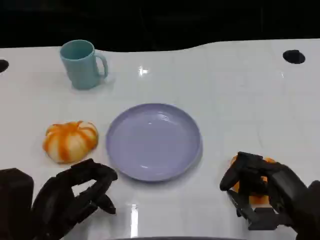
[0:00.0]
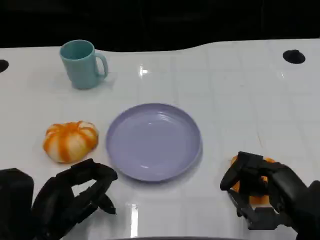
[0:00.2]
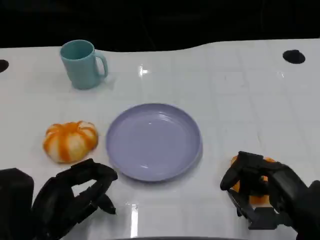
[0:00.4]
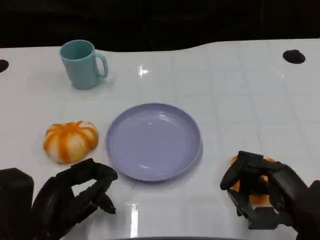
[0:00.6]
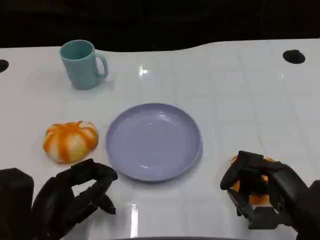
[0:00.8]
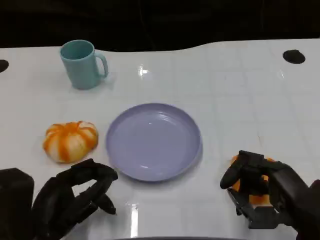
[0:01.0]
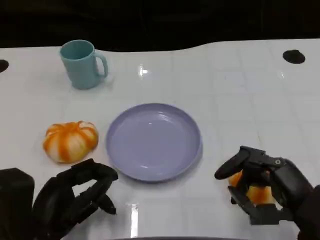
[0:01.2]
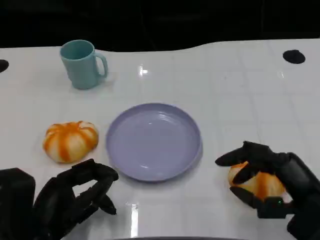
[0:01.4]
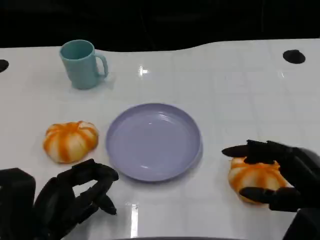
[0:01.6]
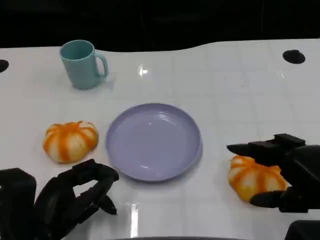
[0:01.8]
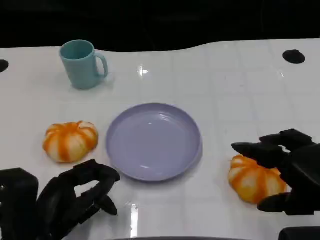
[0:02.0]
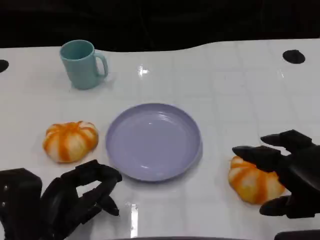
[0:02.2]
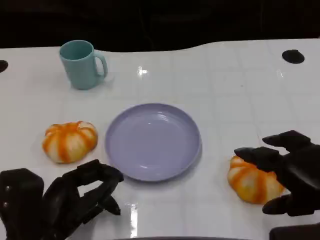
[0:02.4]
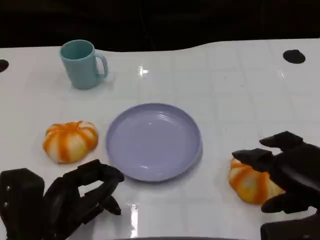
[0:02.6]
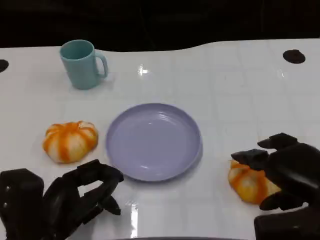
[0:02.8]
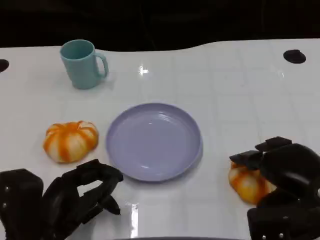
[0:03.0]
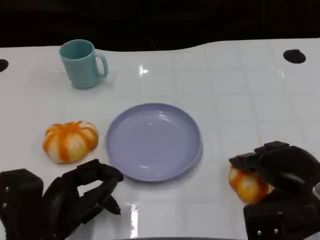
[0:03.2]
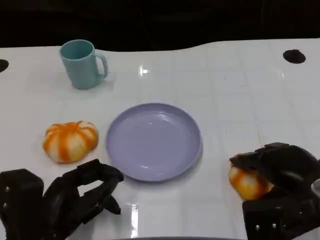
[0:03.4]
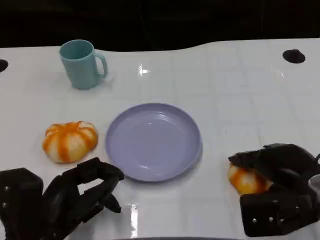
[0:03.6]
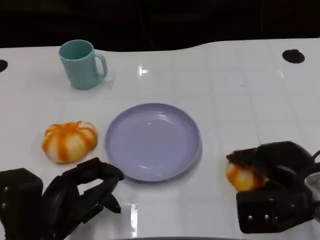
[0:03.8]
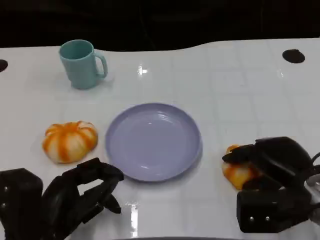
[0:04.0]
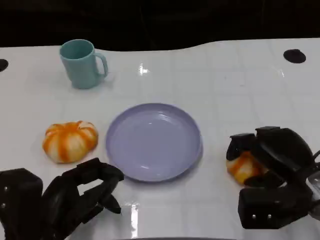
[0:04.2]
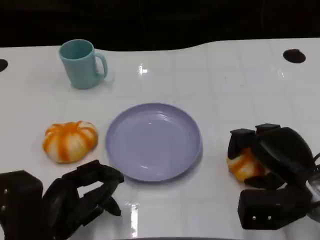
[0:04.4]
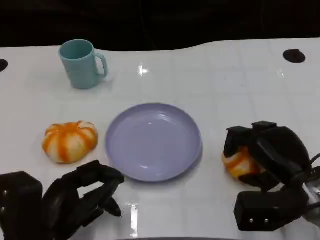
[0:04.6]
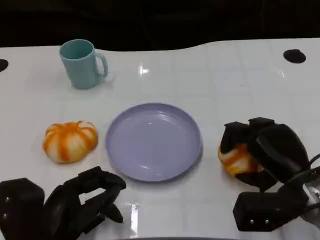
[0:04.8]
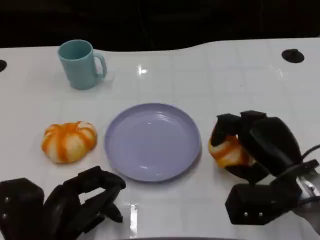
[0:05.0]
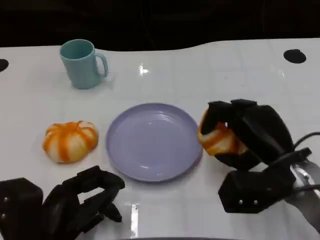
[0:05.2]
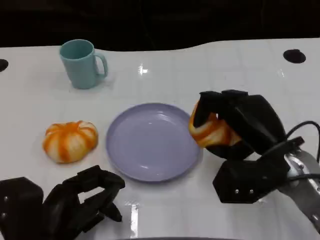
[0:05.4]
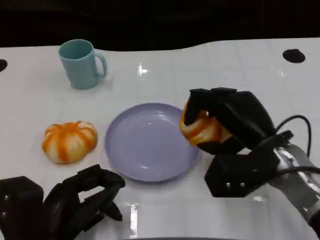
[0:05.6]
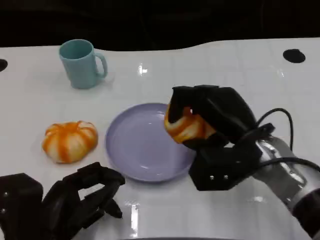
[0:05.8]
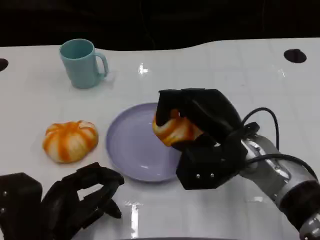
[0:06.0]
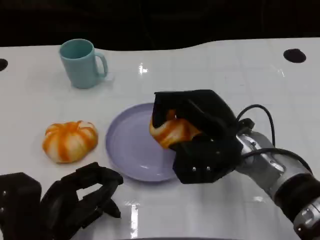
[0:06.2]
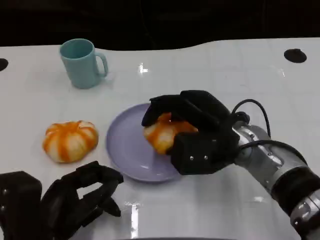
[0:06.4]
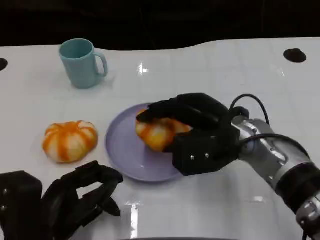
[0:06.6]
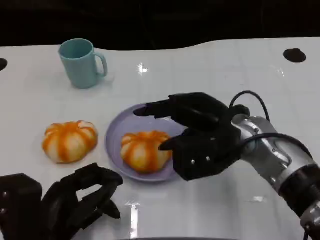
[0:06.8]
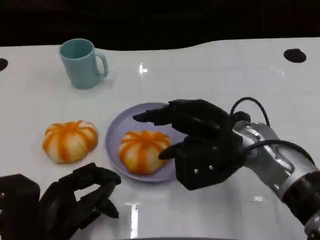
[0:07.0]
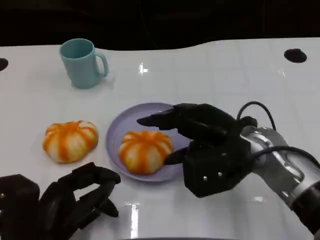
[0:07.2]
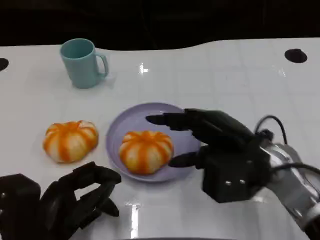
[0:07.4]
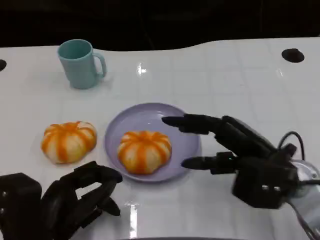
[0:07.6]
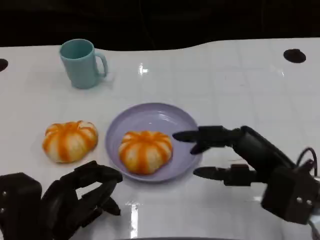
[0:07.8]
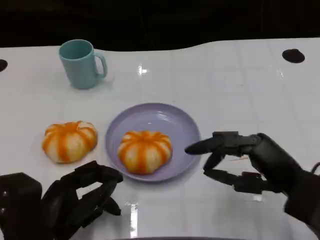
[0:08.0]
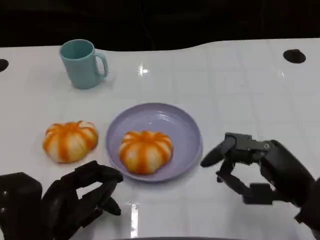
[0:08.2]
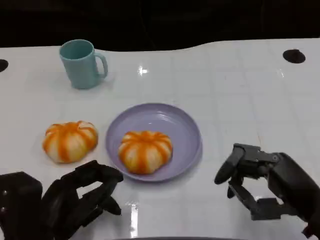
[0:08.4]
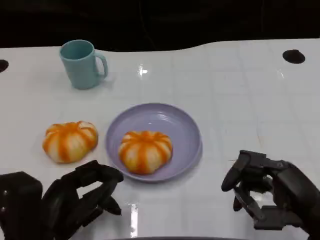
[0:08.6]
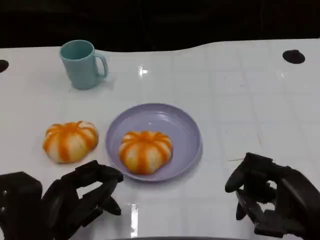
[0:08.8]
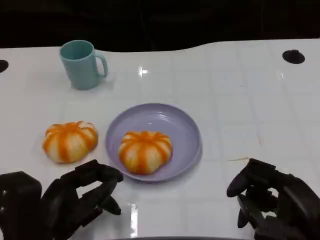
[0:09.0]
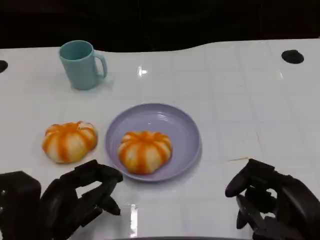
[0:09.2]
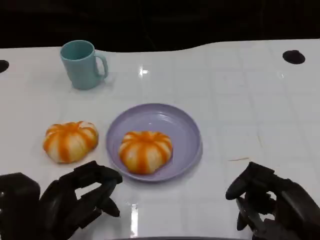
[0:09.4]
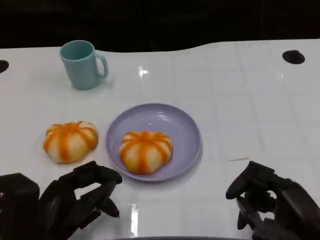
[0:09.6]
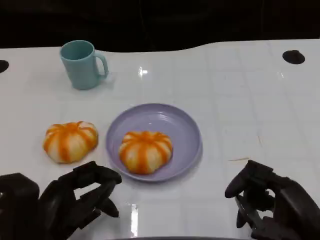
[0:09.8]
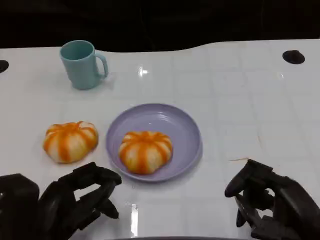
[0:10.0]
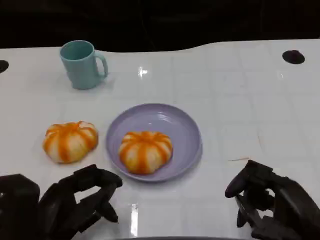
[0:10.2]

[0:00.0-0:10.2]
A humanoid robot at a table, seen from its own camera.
Task of the whole recording: Grasp the bread from the table and place it into the plate.
0:04.4 to 0:05.8: The right hand heads to the left, covering some 10 cm.
0:07.2 to 0:08.8: The right hand heads backward and to the right, covering about 15 cm.
0:08.8 to 0:10.2: The hands make only small movements.

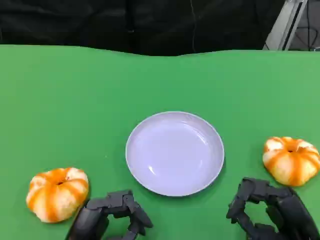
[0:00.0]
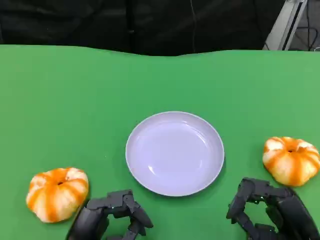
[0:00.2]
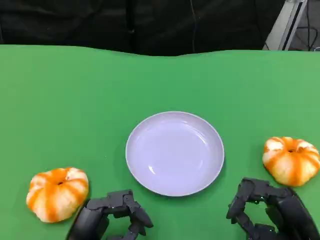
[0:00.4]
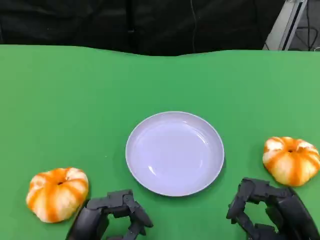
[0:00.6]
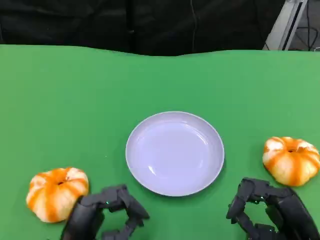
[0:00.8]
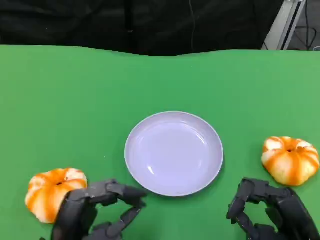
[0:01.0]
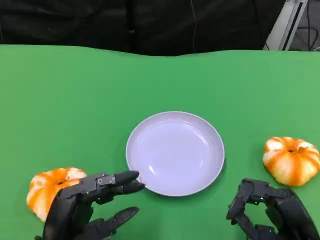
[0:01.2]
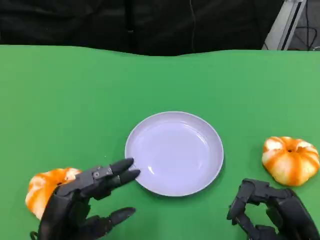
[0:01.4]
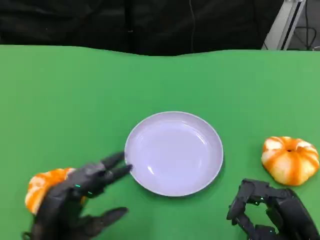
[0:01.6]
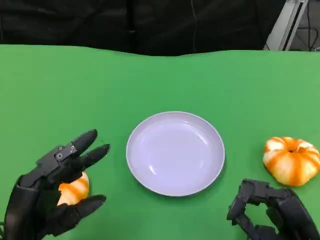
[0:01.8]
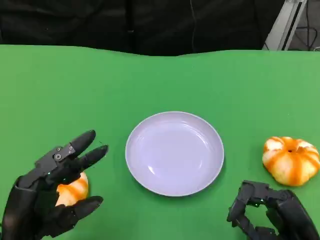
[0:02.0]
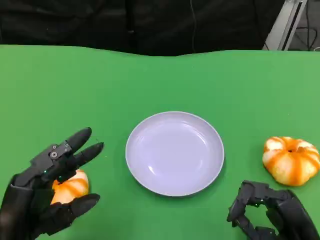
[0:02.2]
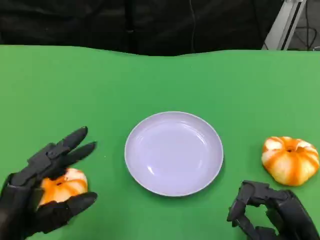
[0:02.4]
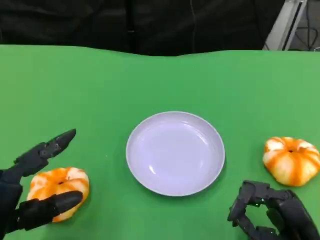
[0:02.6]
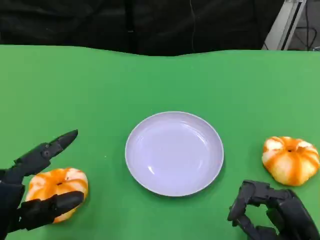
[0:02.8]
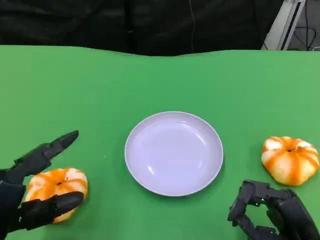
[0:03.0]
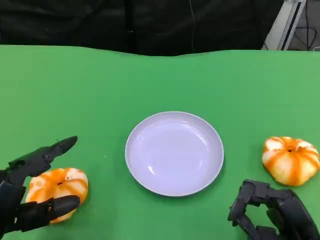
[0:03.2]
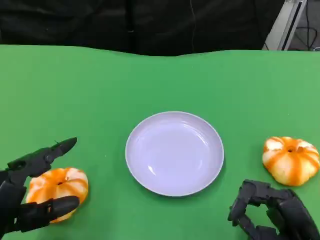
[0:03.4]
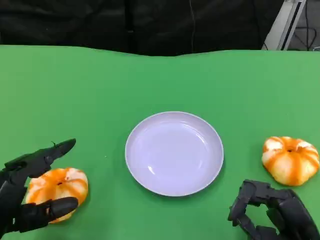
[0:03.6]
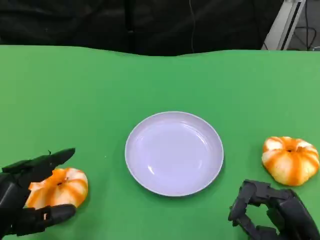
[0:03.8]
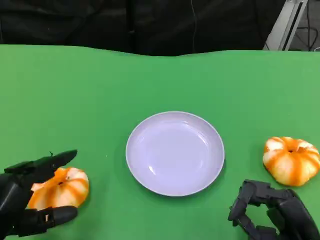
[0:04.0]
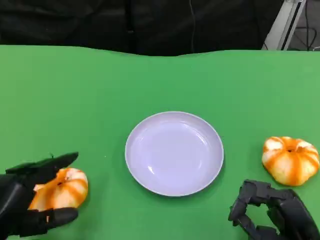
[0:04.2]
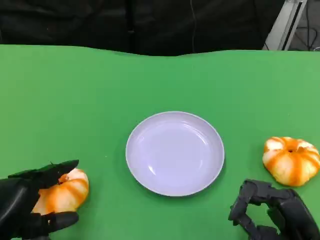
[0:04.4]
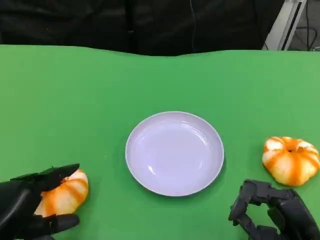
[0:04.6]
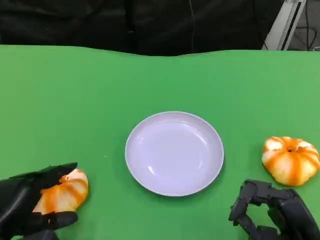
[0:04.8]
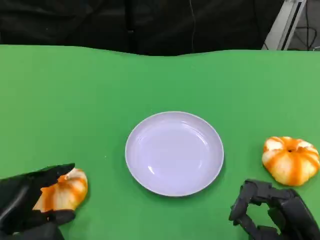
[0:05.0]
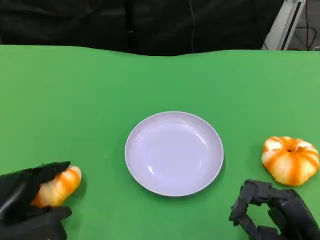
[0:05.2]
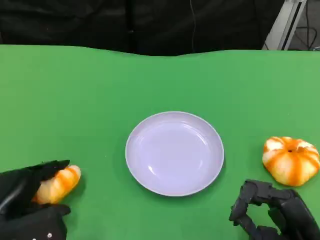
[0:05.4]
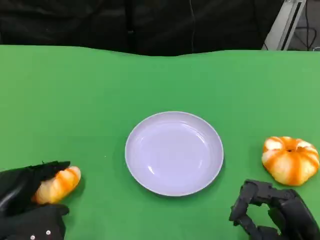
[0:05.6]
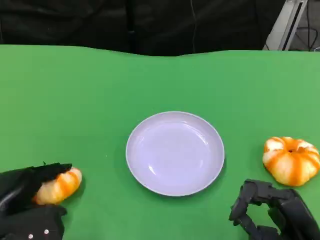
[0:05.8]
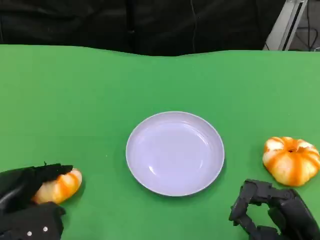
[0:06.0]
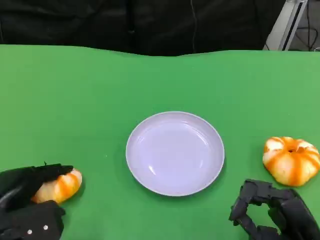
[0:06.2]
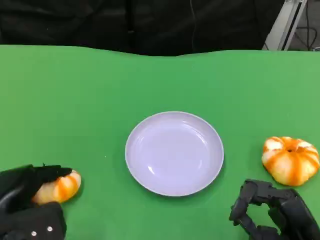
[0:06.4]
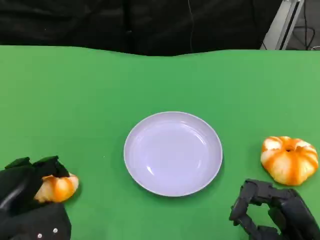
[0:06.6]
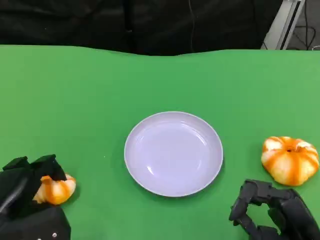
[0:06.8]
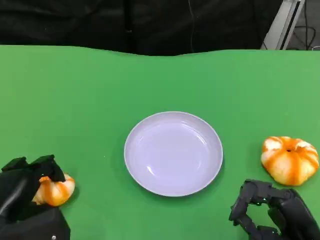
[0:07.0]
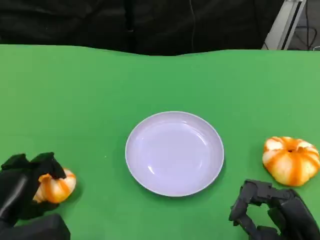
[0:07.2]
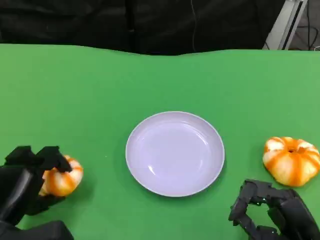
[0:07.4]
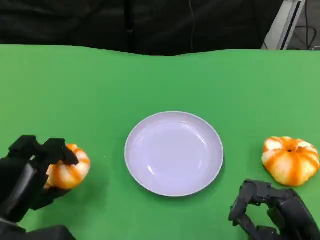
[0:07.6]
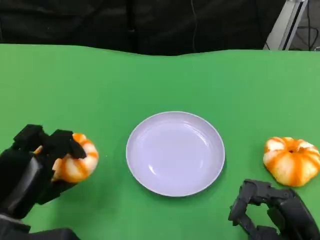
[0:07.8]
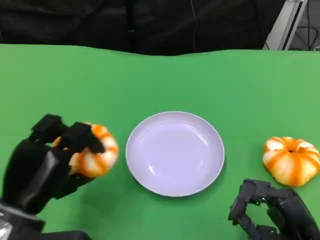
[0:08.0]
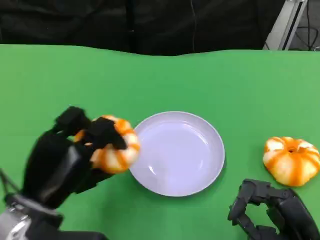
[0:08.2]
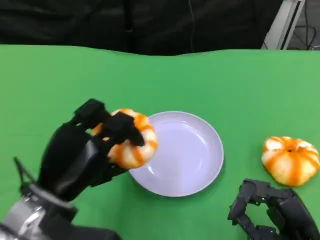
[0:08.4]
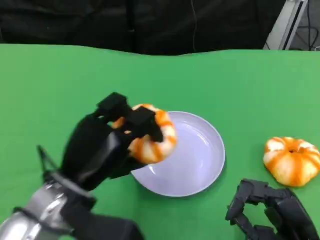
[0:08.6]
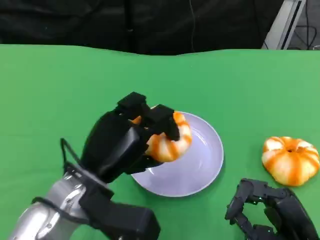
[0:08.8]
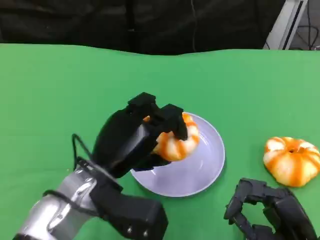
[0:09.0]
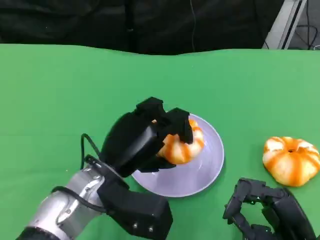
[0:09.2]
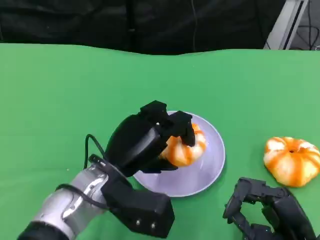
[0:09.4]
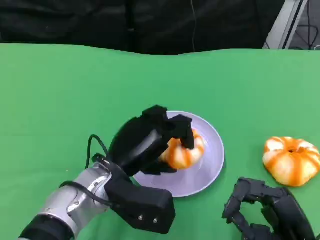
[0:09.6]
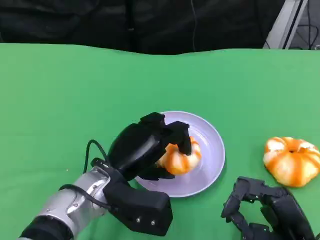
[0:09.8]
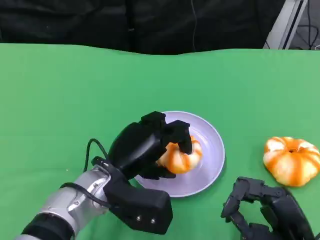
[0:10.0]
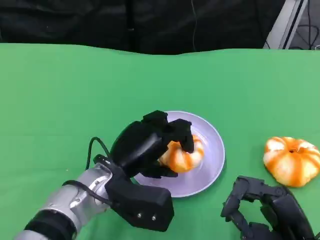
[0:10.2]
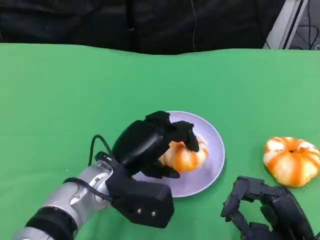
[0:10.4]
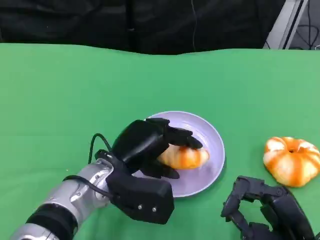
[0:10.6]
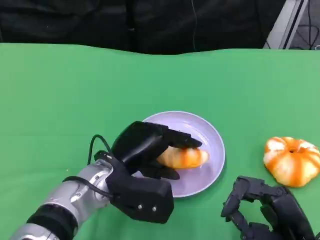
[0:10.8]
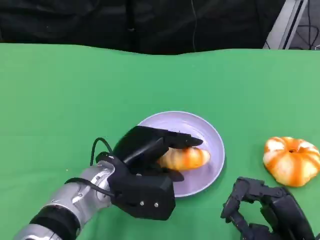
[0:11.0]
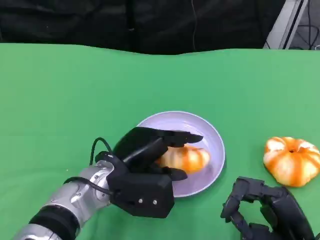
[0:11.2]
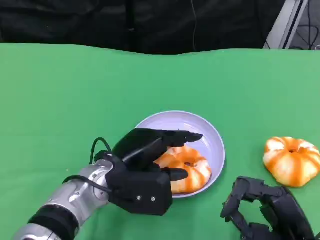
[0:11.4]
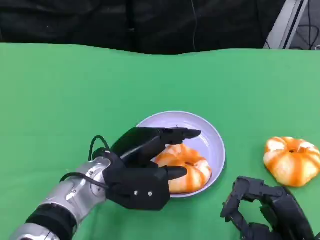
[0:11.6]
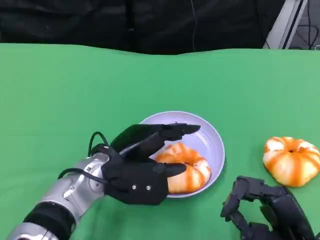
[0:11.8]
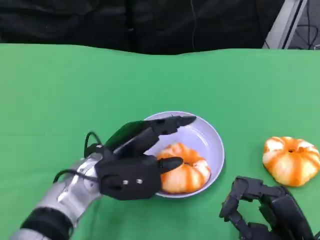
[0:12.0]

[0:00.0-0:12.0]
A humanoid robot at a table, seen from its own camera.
Task of the whole recording: Grasp the bread from the table and place it into the plate.
0:00.0 to 0:01.6: The left hand shifts by about 5 cm.
0:01.6 to 0:03.0: The left hand moves roughly 5 cm.
0:04.4 to 0:06.0: The left hand moves some 5 cm.
0:07.6 to 0:09.0: The left hand goes roughly 15 cm to the right and forward.
0:09.0 to 0:10.4: The hands make only small movements.
0:10.4 to 0:12.0: The hands move only a little.
